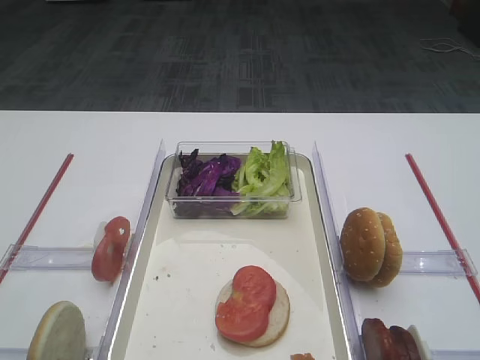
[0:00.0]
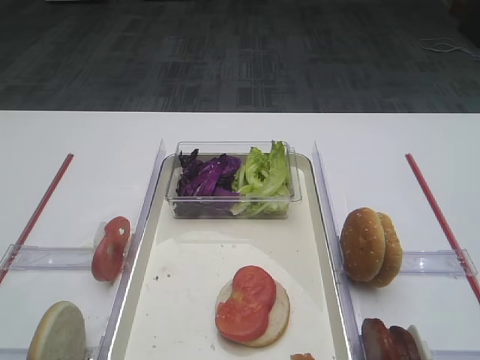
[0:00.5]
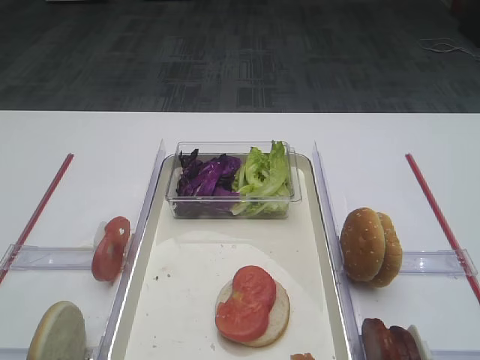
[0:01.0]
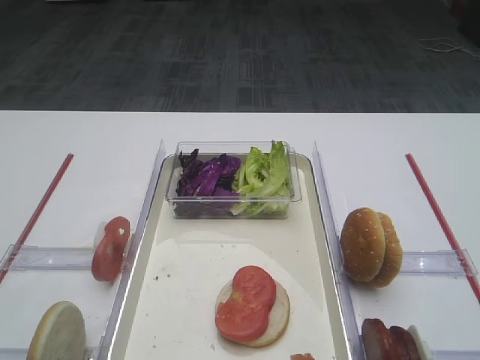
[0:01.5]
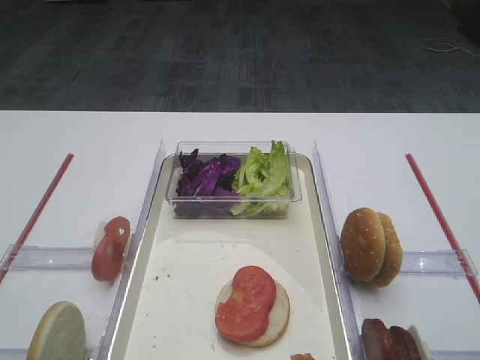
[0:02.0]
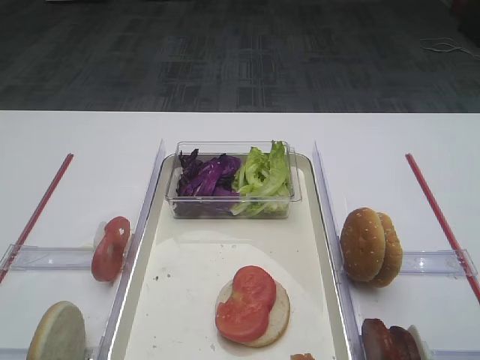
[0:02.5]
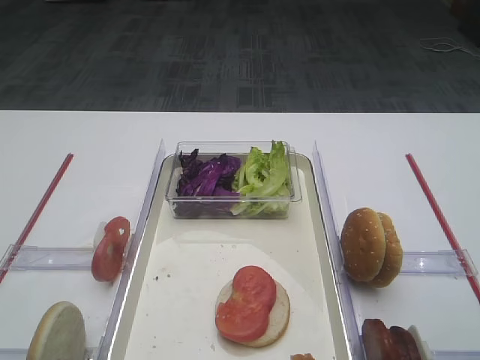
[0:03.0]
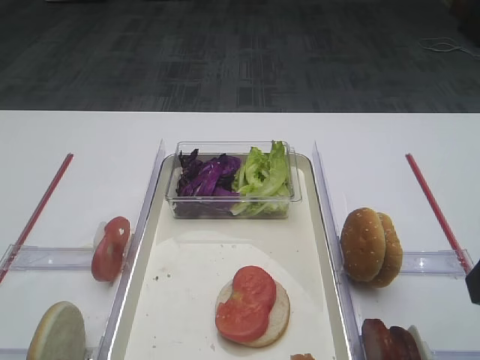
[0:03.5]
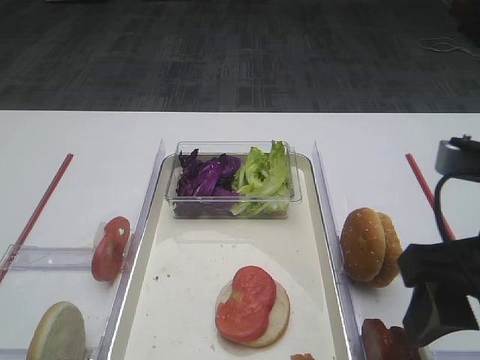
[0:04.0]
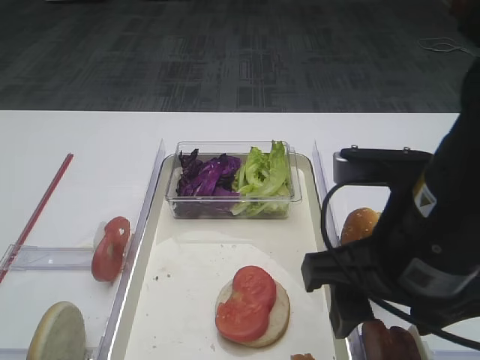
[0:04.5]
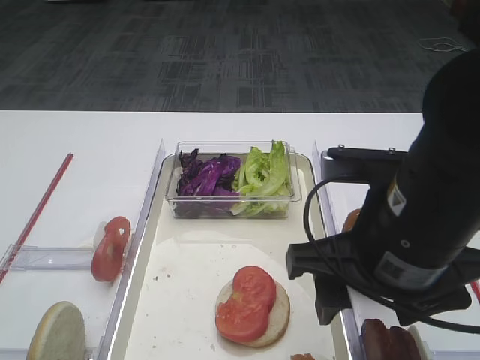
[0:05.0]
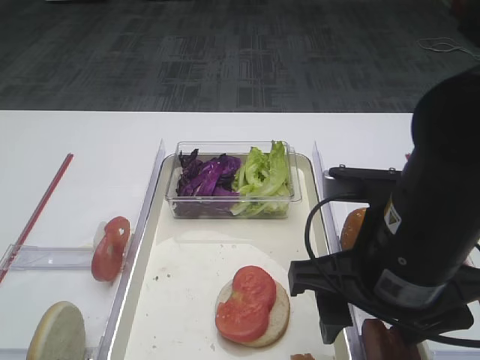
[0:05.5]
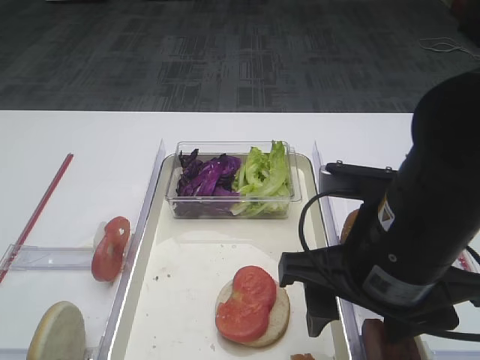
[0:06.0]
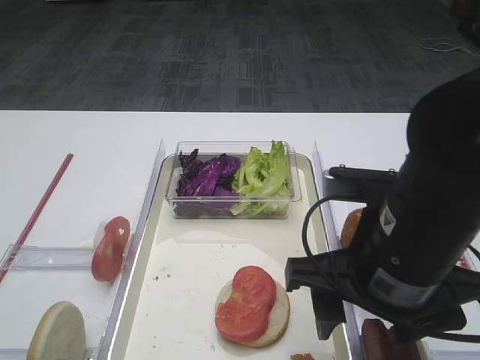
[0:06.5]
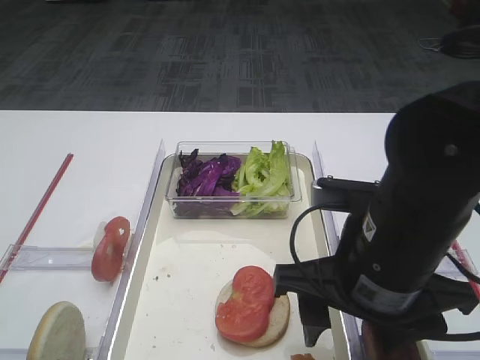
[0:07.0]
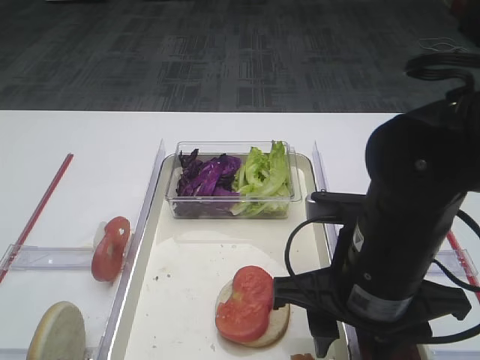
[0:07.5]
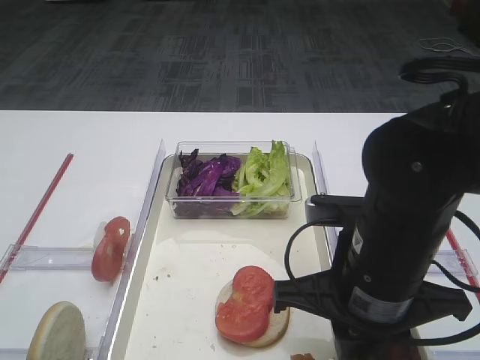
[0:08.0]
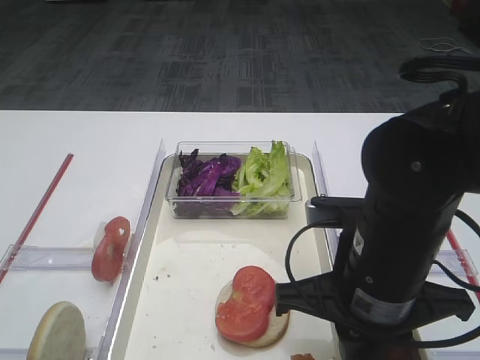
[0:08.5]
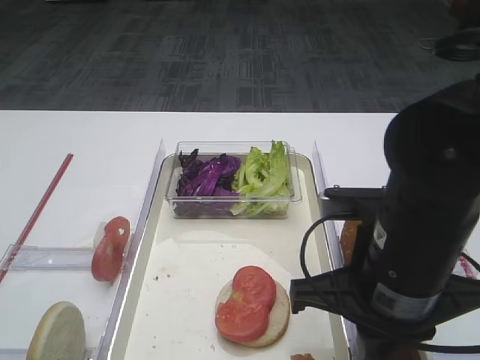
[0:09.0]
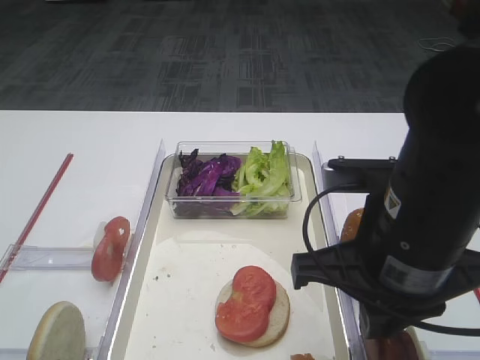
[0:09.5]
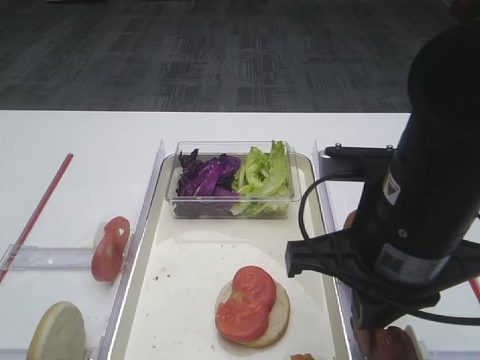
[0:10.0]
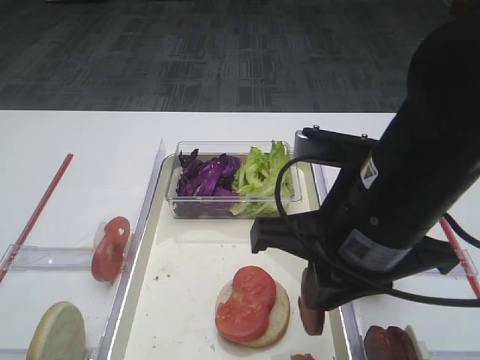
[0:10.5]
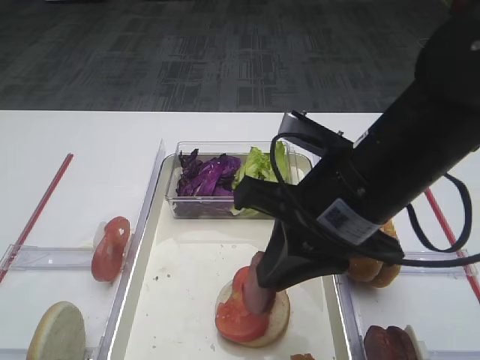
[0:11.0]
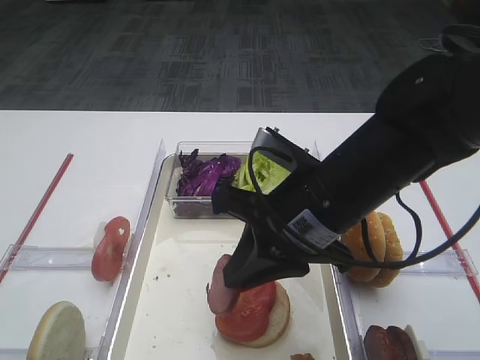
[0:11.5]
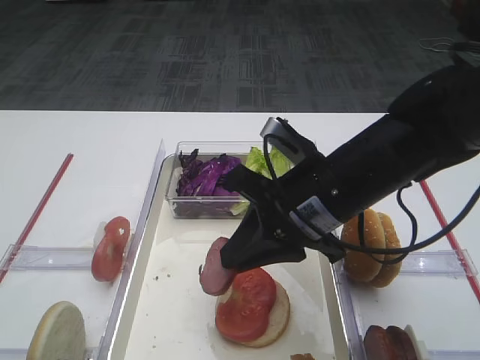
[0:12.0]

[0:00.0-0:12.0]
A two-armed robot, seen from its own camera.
Step, 0:00.0 to 0:10.0: Pick up the cutlet with the right gripper.
0:02.0 to 0:04.0: The right gripper moves to the left, forward and downward, approximately 10 cm.
0:04.0 to 0:06.0: The right gripper goes some 5 cm to the left.
0:06.0 to 0:08.0: The right gripper closes its fingers.
0:08.0 to 0:10.0: The right gripper heads upward, covering about 5 cm.
0:10.0 to 0:12.0: The right gripper heads forward, covering roughly 10 cm.

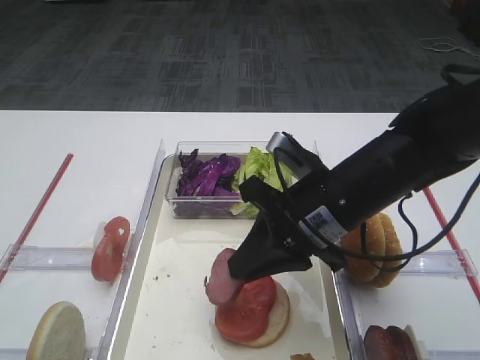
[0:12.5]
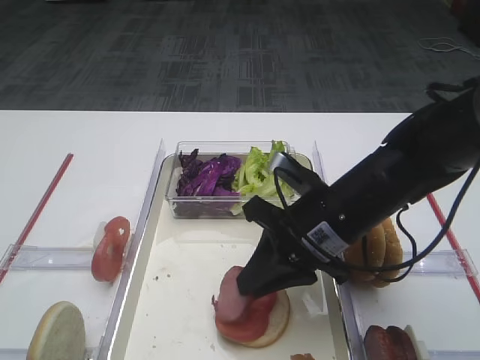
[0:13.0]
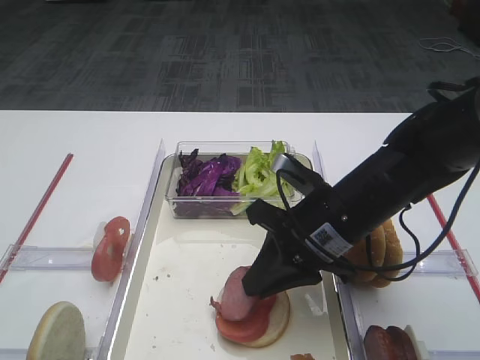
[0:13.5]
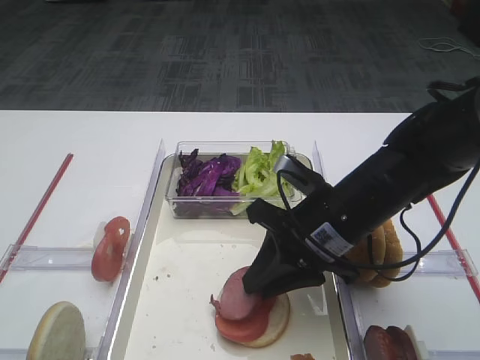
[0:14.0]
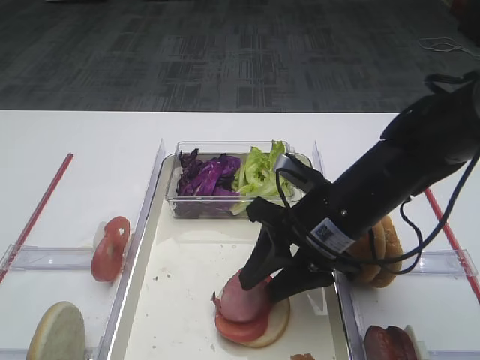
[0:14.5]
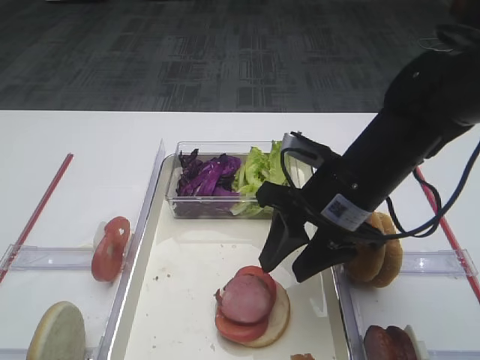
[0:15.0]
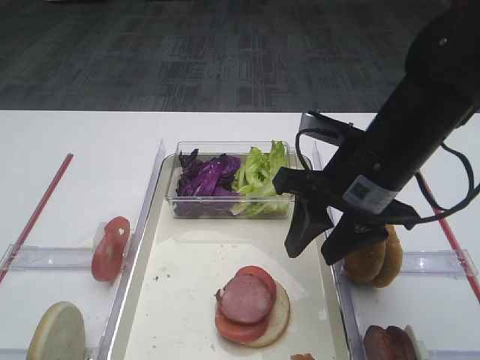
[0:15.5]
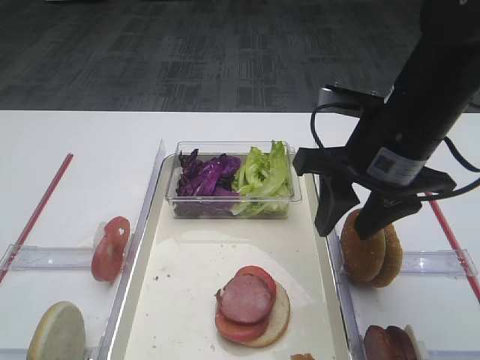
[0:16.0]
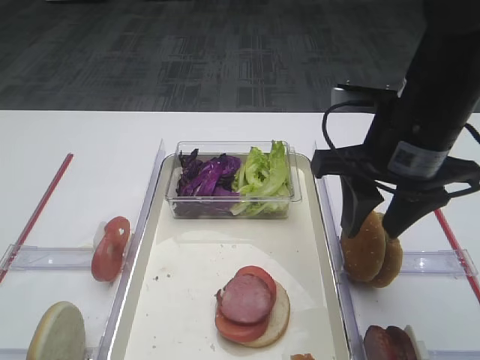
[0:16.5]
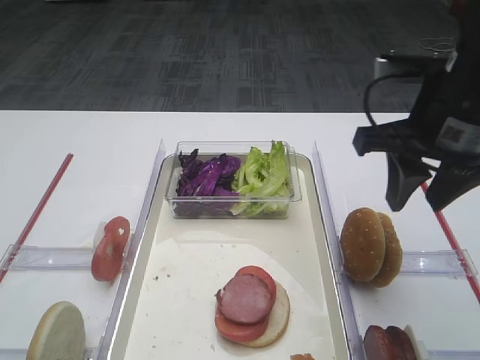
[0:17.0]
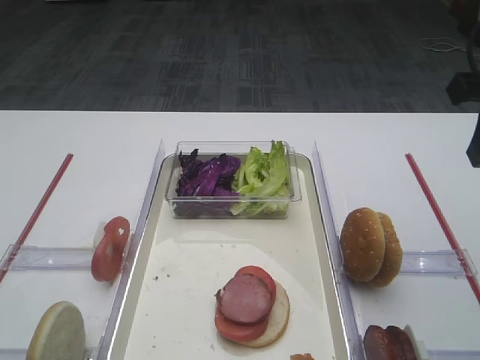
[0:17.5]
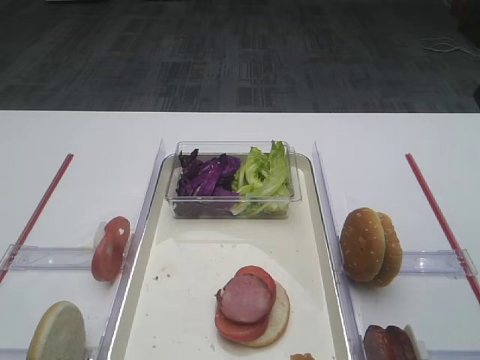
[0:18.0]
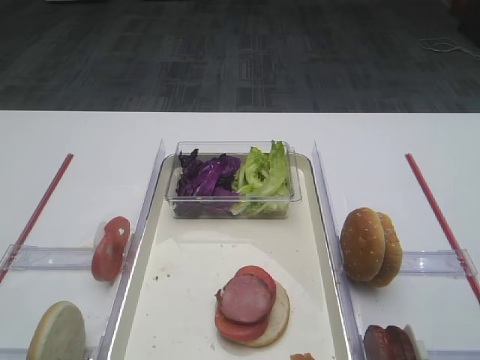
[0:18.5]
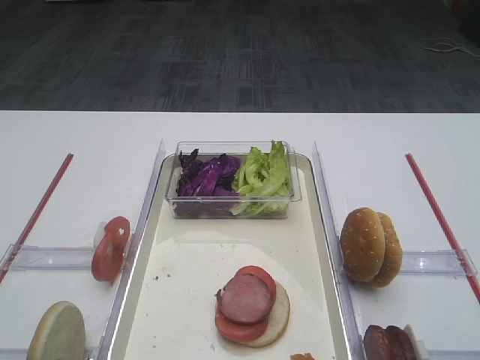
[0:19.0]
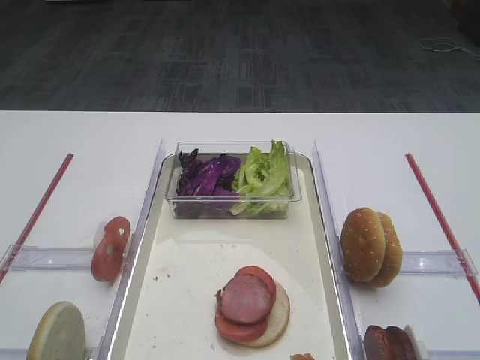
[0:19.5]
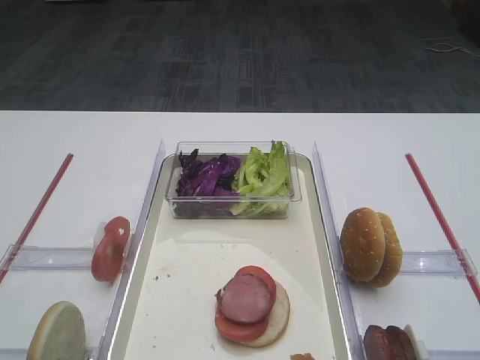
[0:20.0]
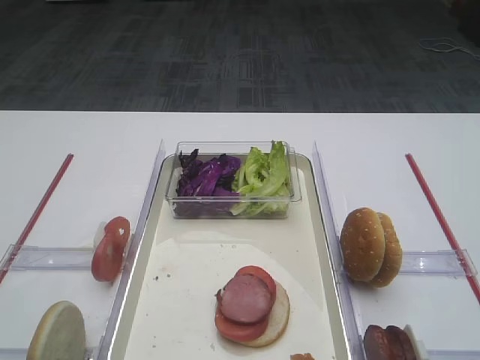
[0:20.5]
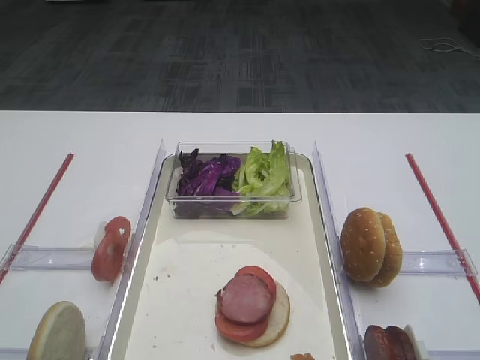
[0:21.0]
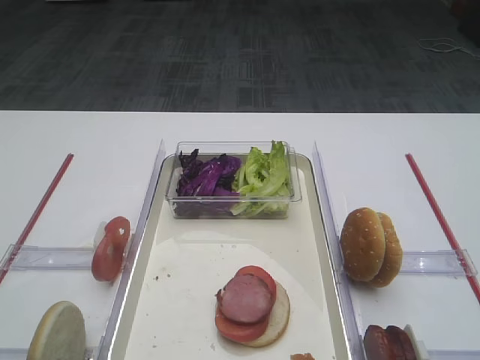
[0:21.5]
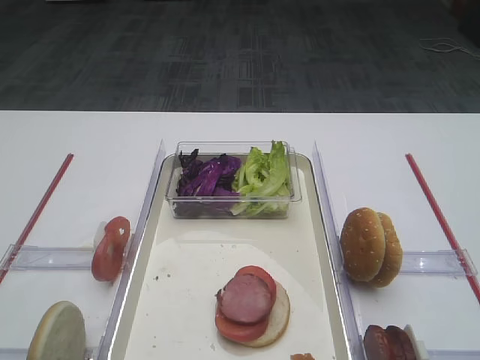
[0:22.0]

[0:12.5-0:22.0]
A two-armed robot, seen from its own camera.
Step, 0:12.5 to 0:15.0: Place the cutlet on the tomato slice with the right gripper.
0:12.5 to 0:14.5: The right gripper opens up.
0:14.5 to 0:16.5: The right gripper heads upward, covering approximately 10 cm.
0:16.5 to 0:18.0: The right gripper moves to the right and upward, some 15 cm.
